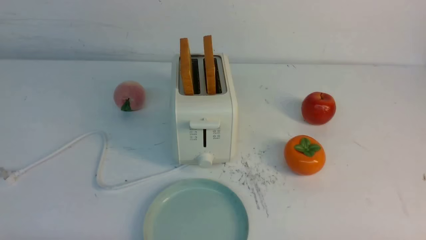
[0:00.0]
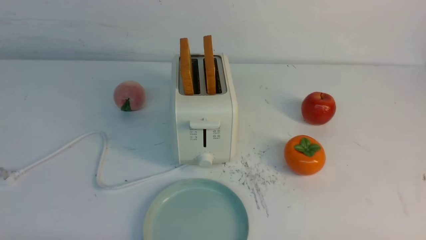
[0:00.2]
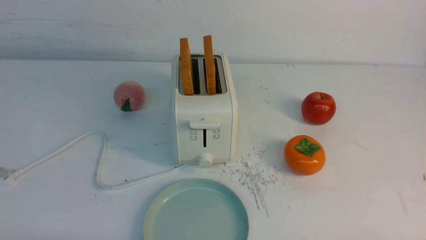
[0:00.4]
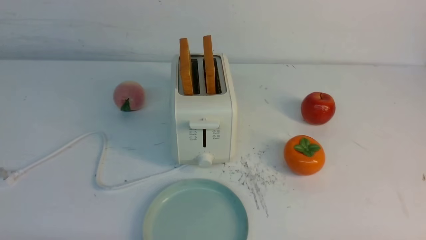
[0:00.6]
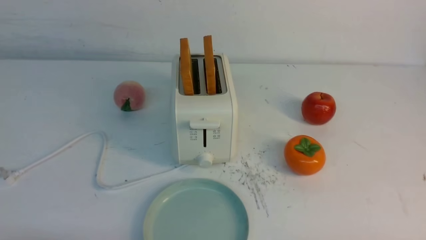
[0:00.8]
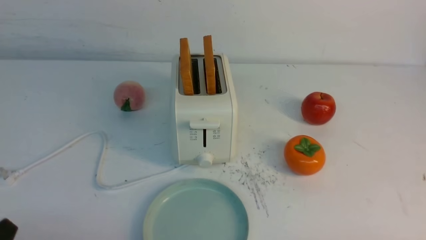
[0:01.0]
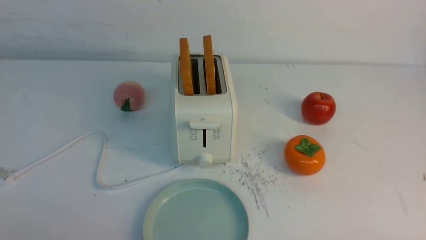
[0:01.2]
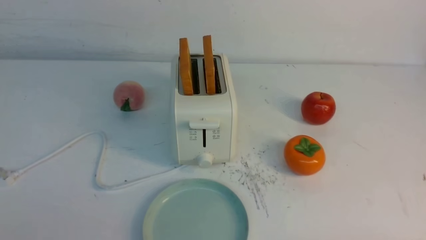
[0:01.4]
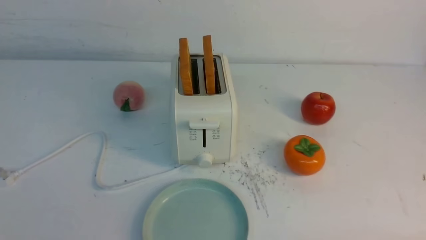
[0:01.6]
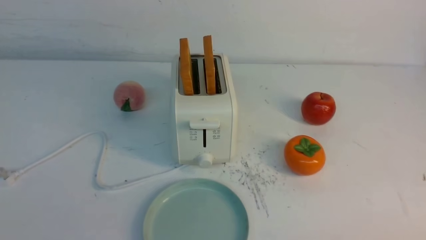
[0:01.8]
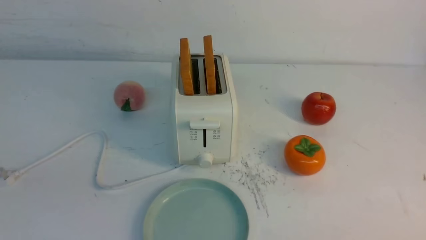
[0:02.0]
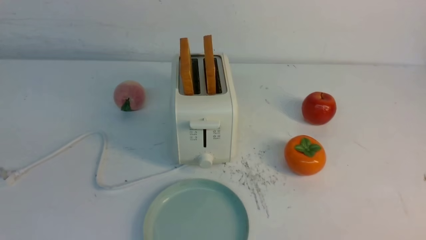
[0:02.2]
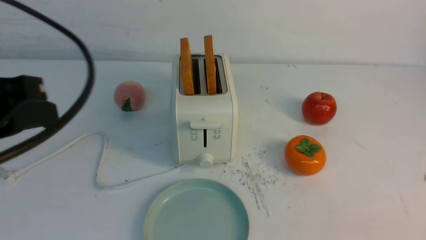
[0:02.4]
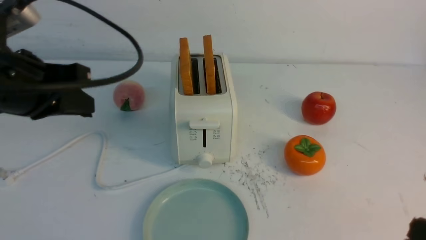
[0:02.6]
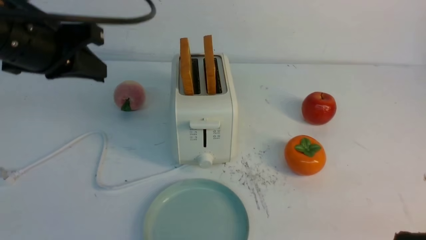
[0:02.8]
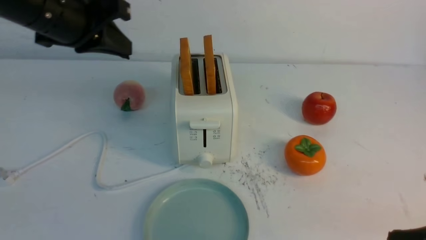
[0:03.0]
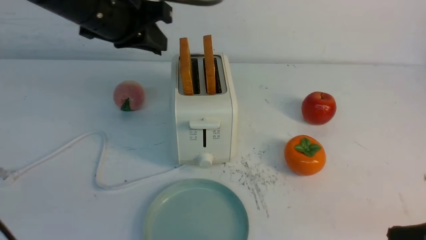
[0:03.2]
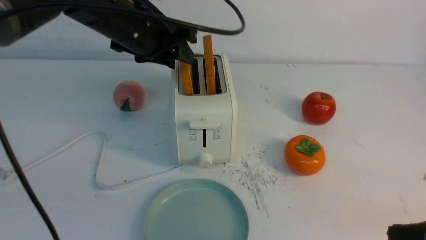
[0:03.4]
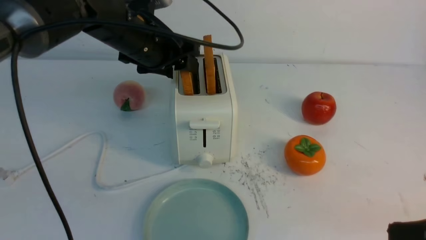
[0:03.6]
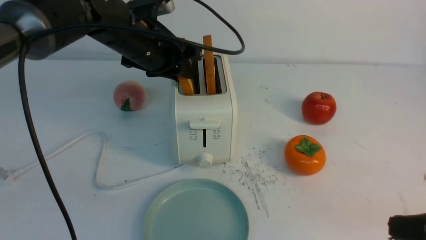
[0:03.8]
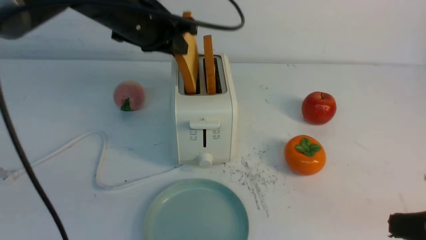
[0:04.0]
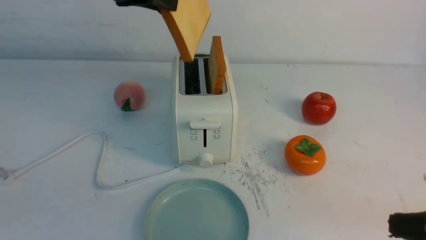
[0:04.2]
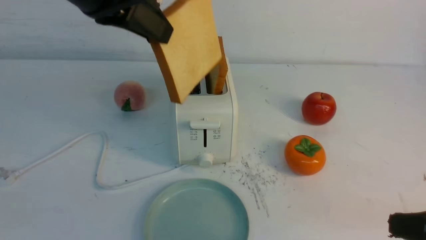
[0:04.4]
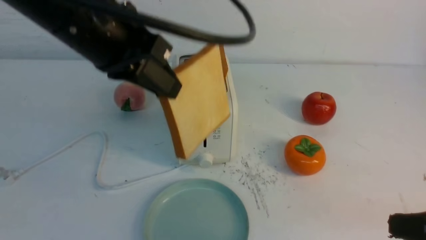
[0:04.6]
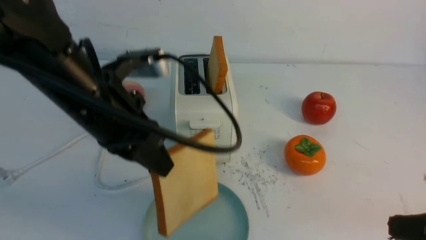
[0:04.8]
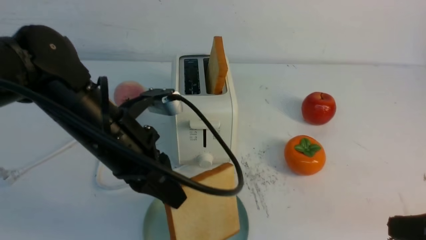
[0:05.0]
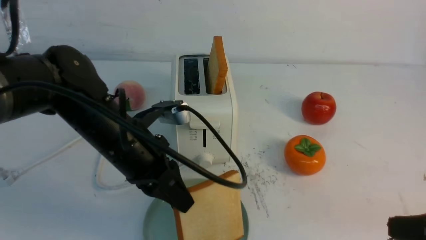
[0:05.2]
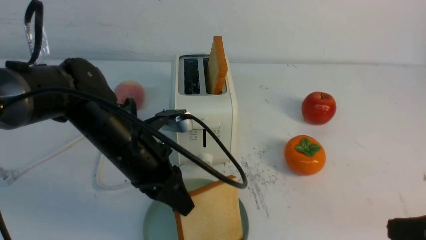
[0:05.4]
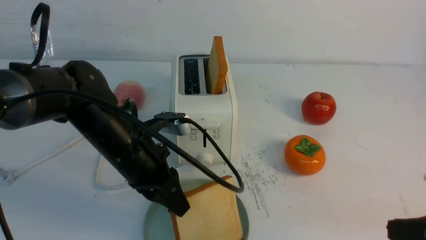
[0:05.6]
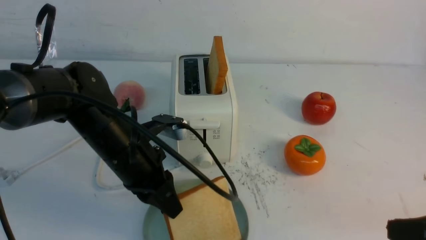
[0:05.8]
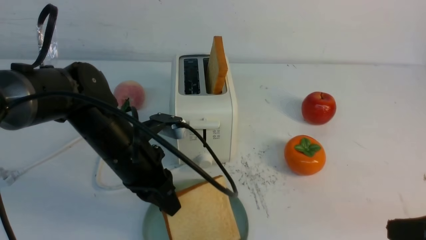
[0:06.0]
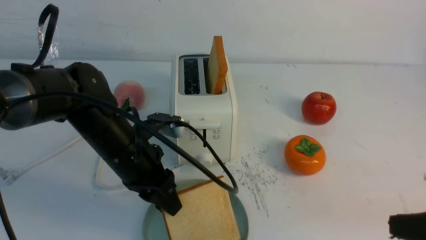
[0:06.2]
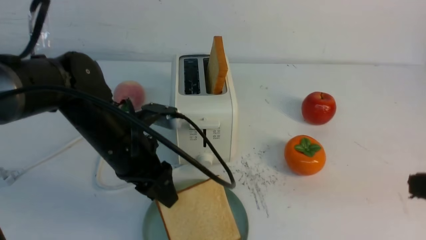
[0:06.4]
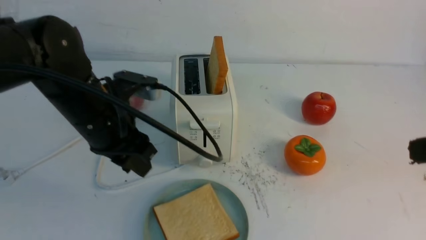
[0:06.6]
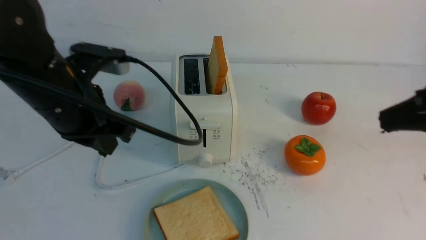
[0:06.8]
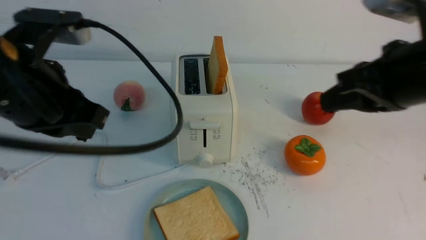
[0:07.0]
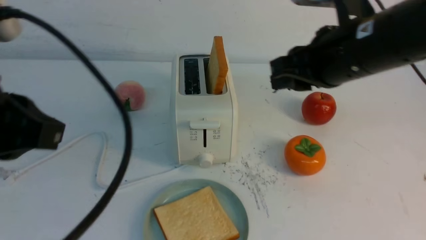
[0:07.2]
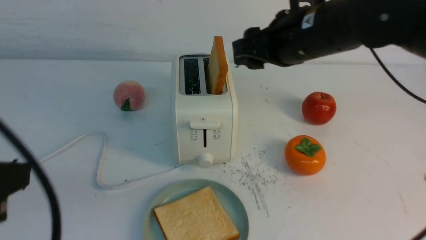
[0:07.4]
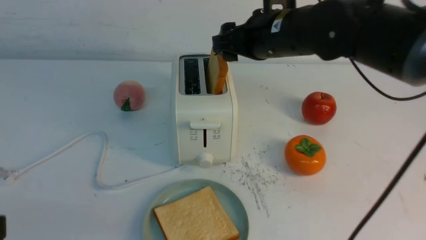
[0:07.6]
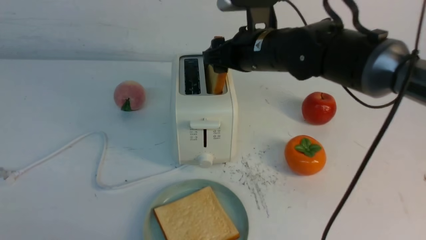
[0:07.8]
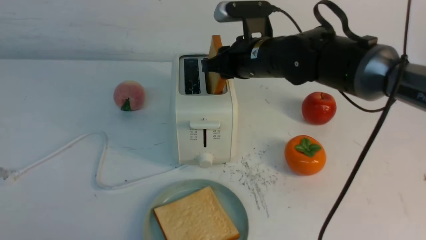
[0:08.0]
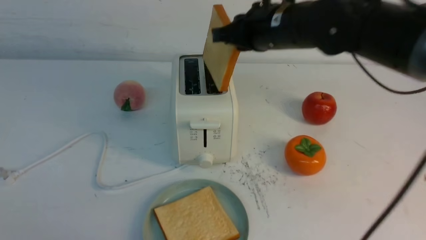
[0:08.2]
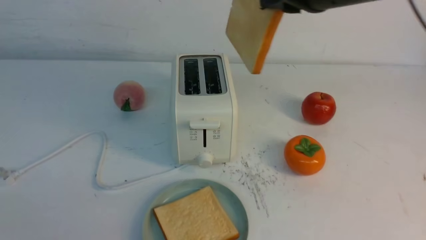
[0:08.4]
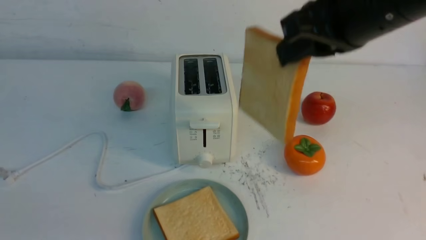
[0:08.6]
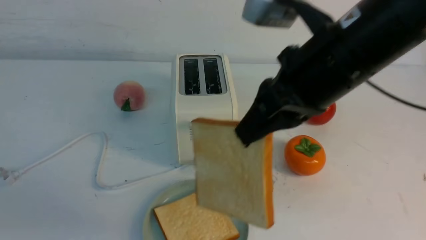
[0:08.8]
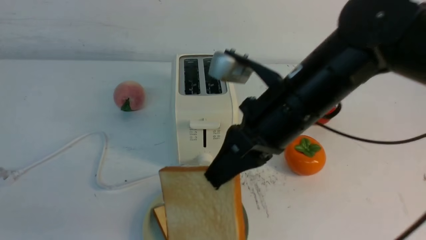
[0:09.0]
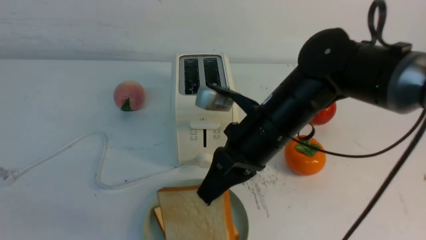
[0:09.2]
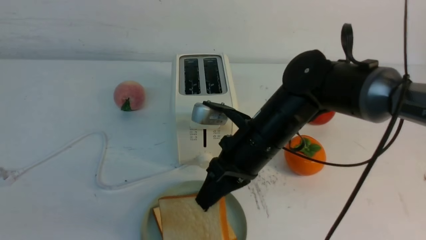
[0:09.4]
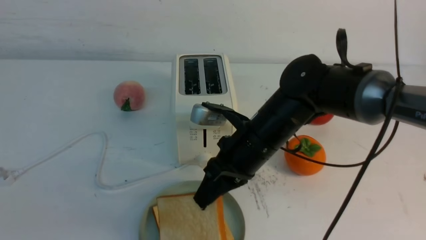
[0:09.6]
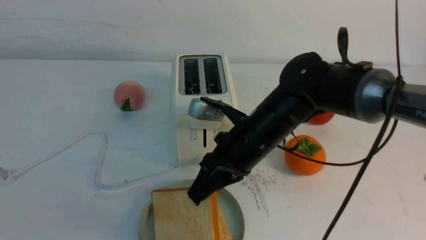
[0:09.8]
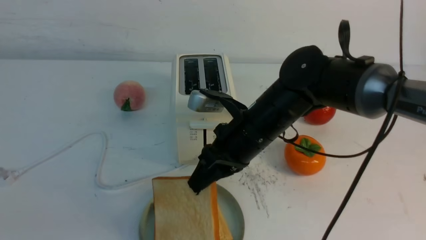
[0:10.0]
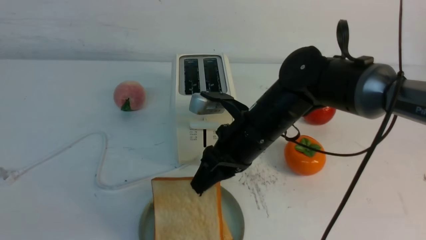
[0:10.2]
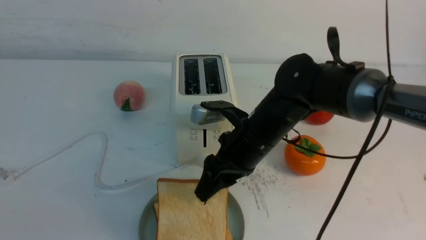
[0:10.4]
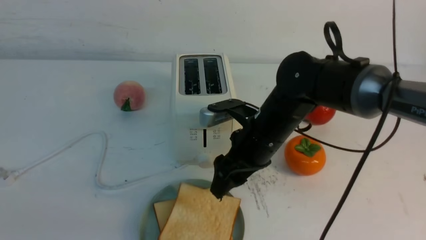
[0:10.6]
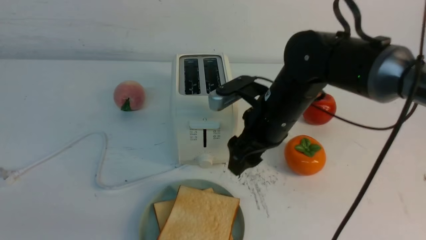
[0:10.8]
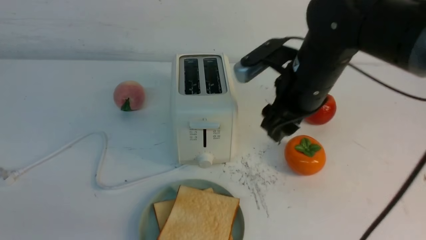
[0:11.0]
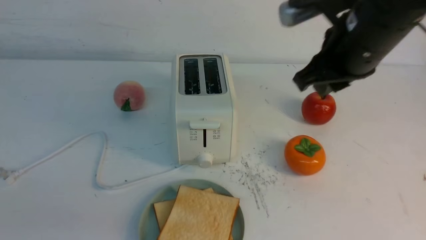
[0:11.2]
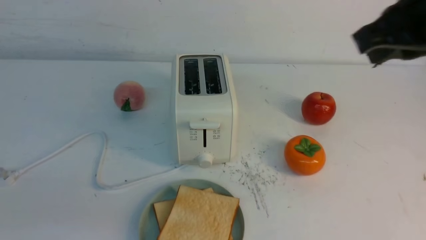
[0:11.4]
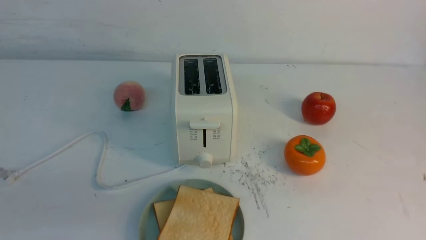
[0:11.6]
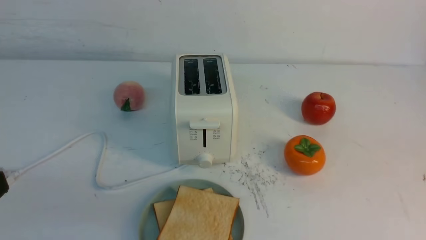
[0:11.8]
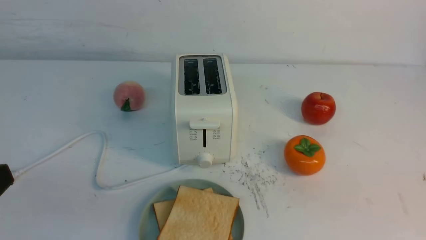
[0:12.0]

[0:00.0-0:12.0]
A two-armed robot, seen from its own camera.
Task of the whole recording: take toasted bread from bread machine on white table place on plate.
Step, 0:00.0 to 0:04.0: use the left arm to take out a slice of bread.
Step, 0:04.2 to 0:06.6: use the left arm to put a slice of bread into the empty plate.
Step, 0:06.8 to 0:08.2: use the right arm to take out a slice of bread.
Step, 0:08.4 to 0:10.6: use the right arm to put a slice of bread into the plate.
0:01.6 to 0:03.0: The right gripper is displaced upward and forward by roughly 10 cm, and closes. The left gripper goes about 30 cm forward and upward.
0:03.0 to 0:04.4: The left gripper travels forward and back again, some 10 cm each way, and opens, then closes once more.
0:04.4 to 0:06.0: The left gripper shifts approximately 20 cm downward.
0:06.0 to 0:07.6: The right gripper moves forward and to the left, approximately 30 cm, and opens up; the left gripper goes approximately 30 cm backward, upward and to the left, and closes.
0:07.6 to 0:09.0: The right gripper moves backward, some 10 cm, and closes up.
0:09.0 to 0:10.4: The right gripper is displaced downward and forward by roughly 10 cm, and opens.
0:10.4 to 0:12.0: The right gripper goes roughly 35 cm backward and to the right, and closes its fingers.

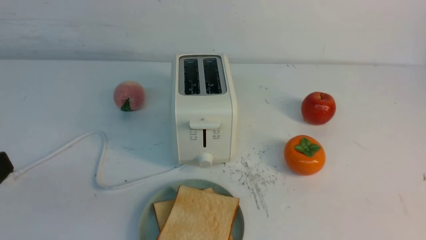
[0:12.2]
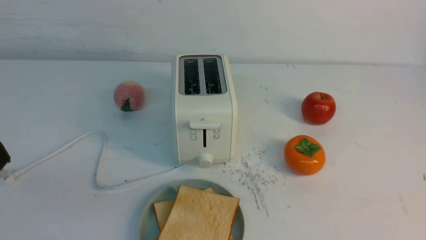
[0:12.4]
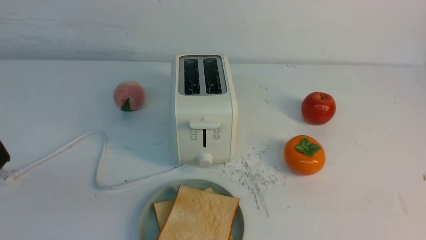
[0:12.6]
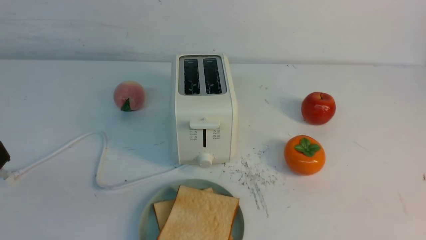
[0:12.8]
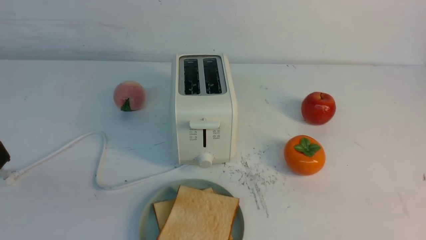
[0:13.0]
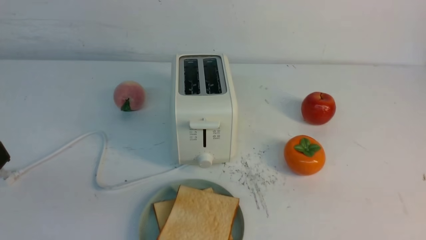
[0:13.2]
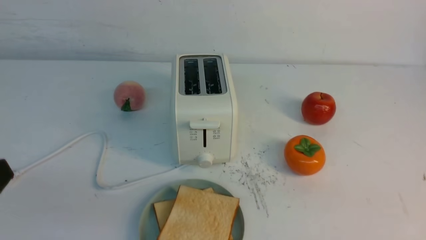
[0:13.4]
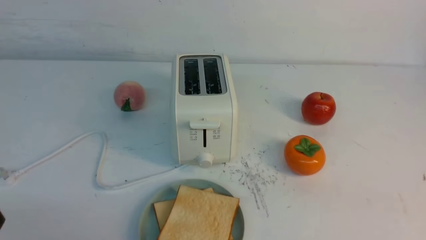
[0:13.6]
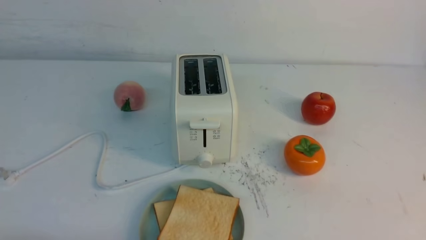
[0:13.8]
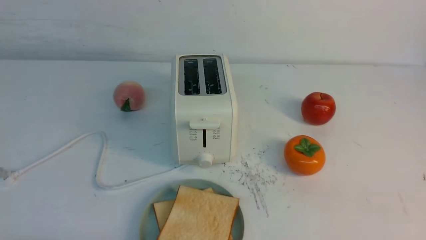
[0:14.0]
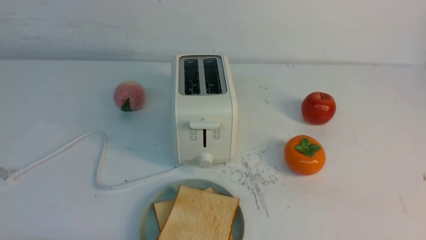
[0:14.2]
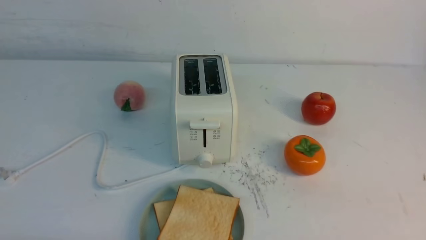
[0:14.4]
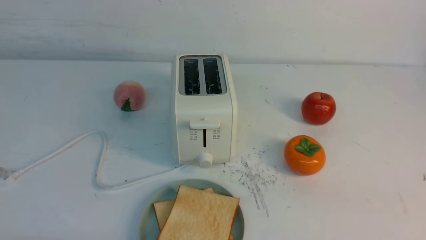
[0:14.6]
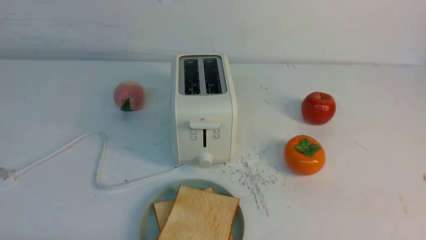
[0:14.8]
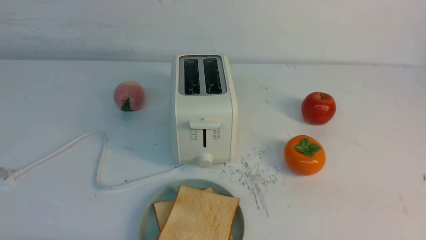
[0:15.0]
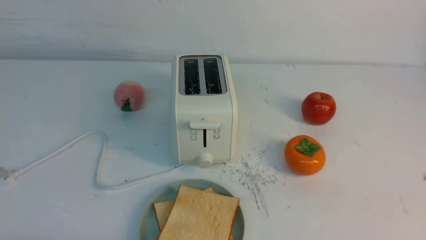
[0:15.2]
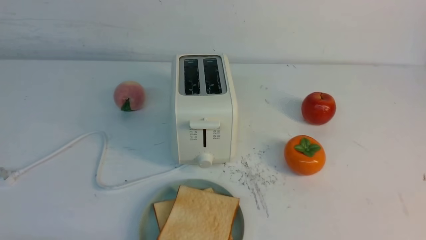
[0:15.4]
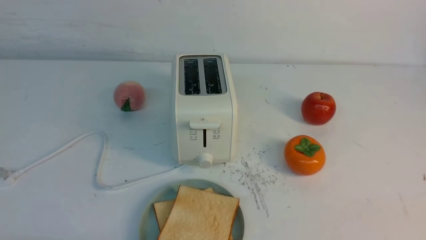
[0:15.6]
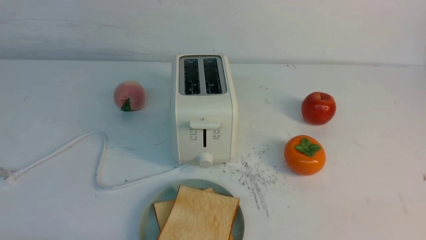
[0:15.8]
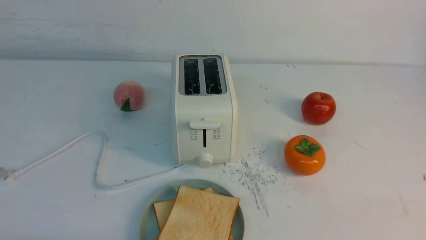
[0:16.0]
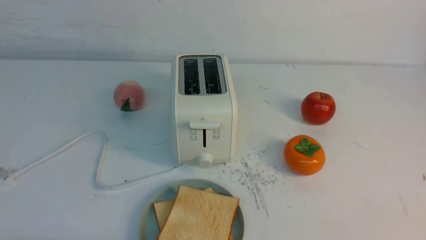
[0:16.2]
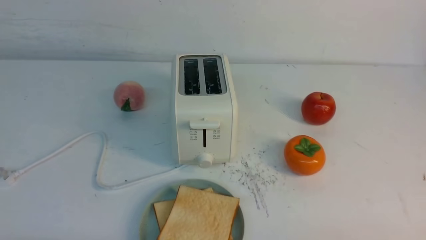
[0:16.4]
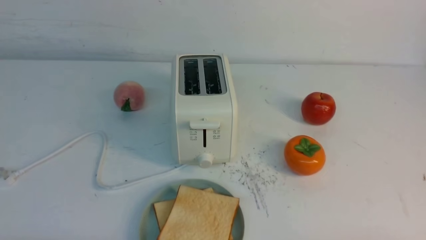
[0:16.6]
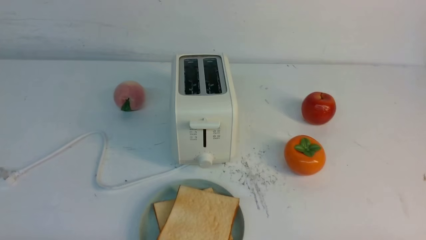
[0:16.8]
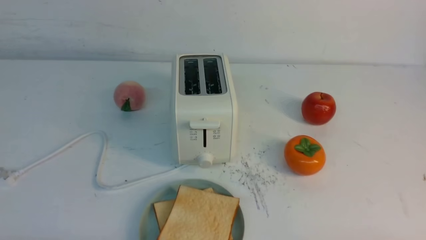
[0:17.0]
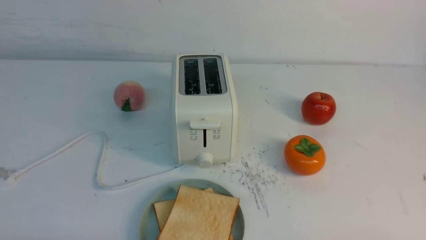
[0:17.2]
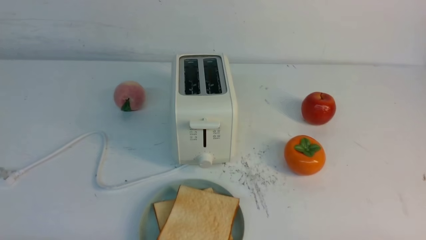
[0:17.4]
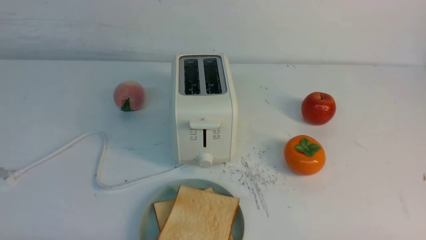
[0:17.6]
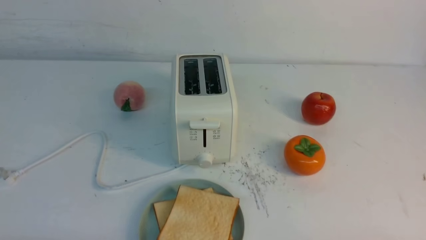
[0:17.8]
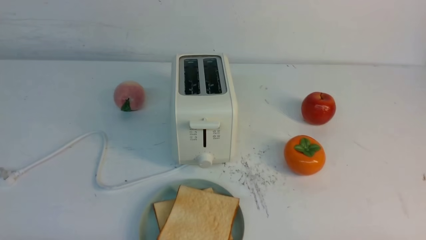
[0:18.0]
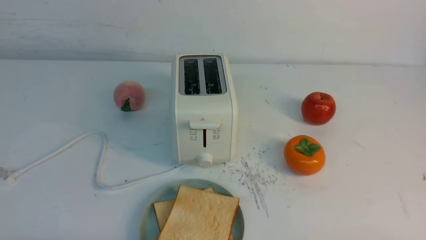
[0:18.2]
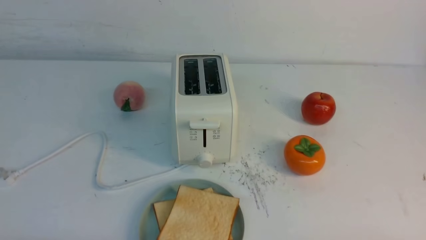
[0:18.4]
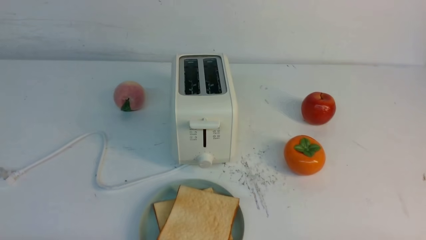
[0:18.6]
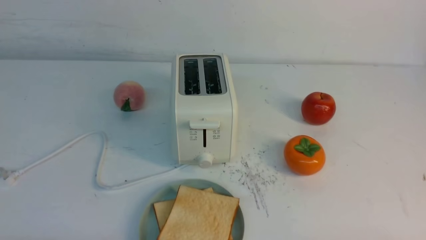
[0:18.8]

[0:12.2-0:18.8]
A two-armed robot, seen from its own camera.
Task of the whole recording: take toasted bread from bread machine on white table place on plate.
0:17.2 to 0:18.8: Neither gripper changes place.
